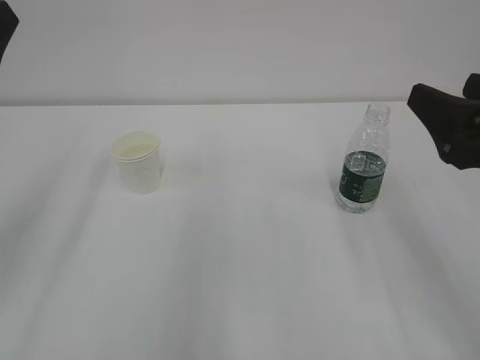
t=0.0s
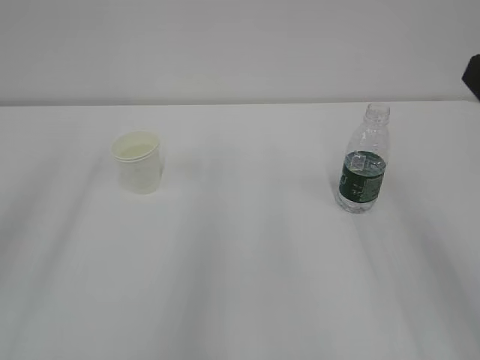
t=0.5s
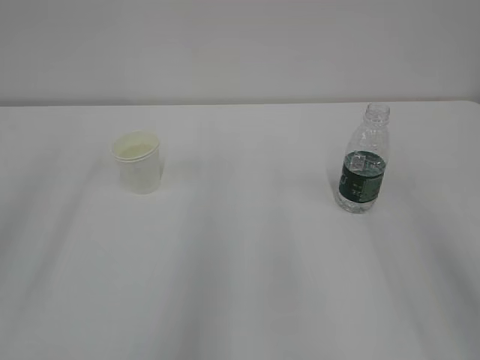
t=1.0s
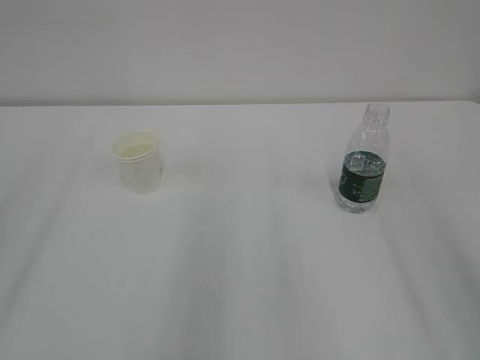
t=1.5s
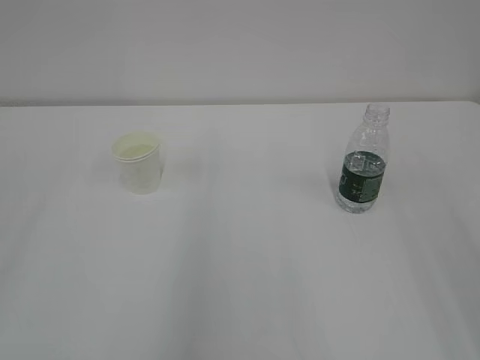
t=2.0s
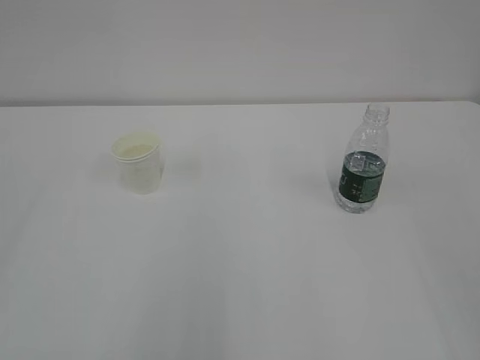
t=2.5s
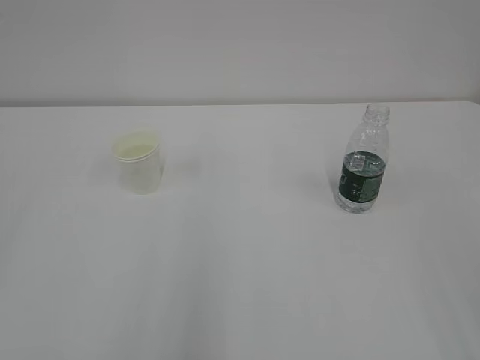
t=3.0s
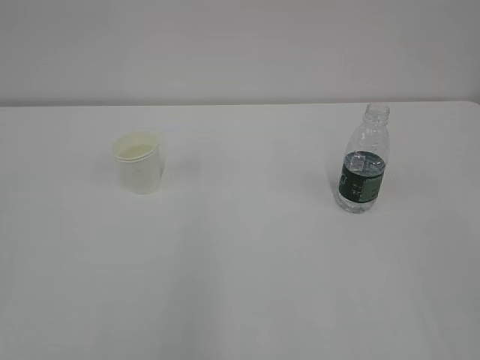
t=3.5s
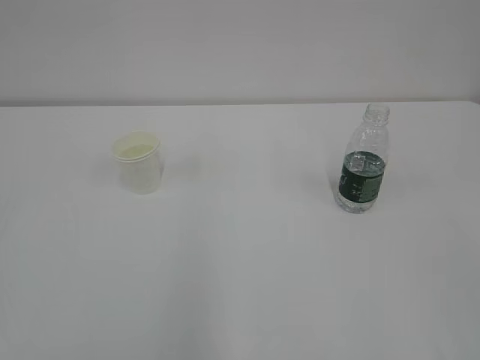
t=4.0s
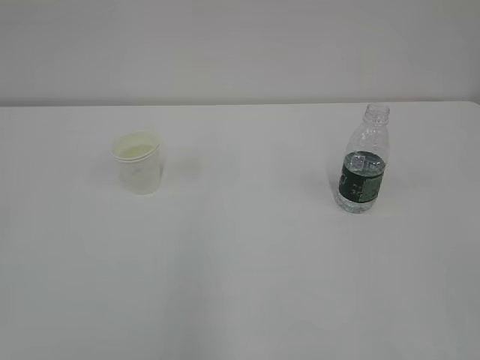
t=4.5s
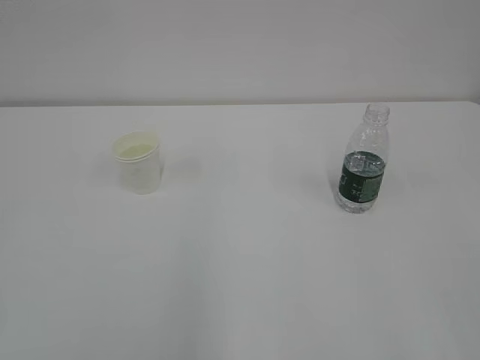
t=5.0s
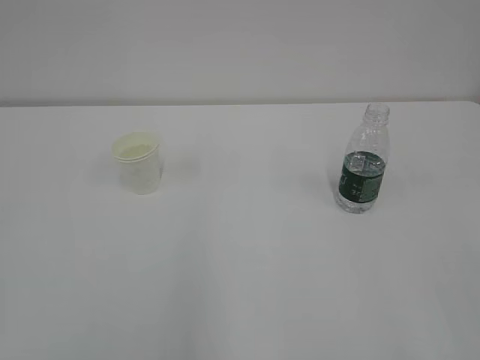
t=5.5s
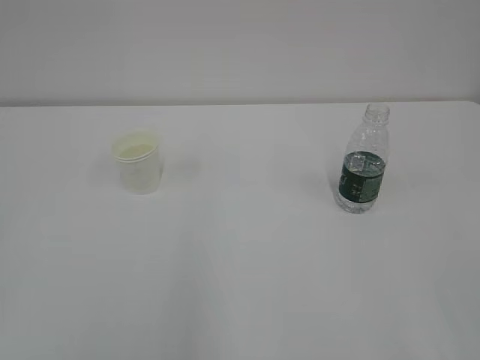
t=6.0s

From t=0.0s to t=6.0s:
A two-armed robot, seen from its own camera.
From t=0.0s to t=2.0s: The right gripper moves backward and upward, roughly 15 cm.
